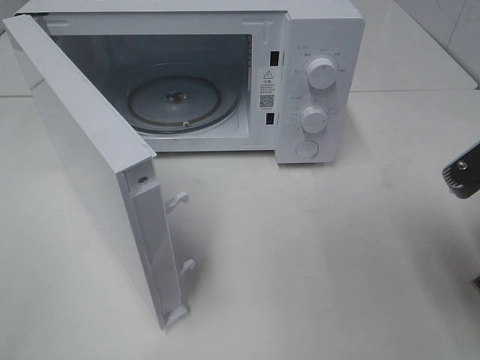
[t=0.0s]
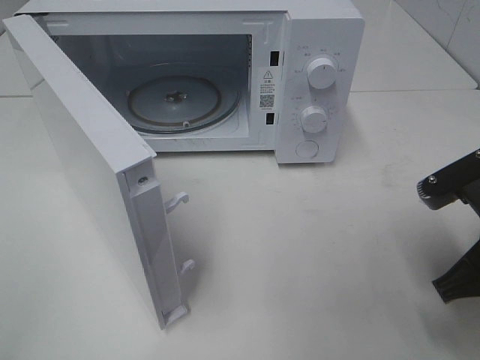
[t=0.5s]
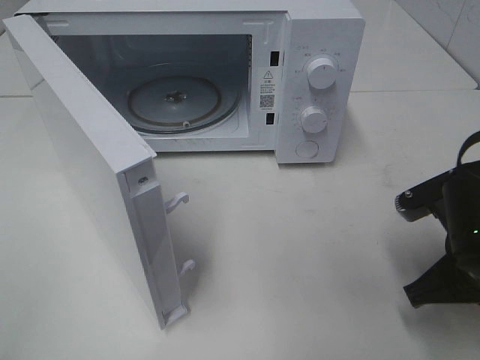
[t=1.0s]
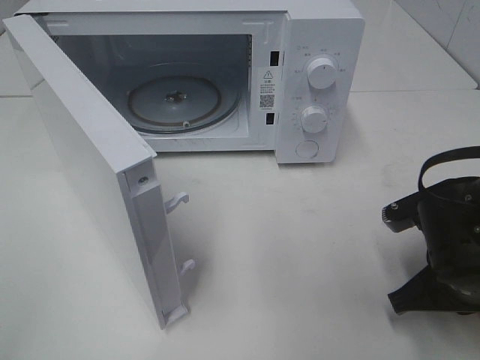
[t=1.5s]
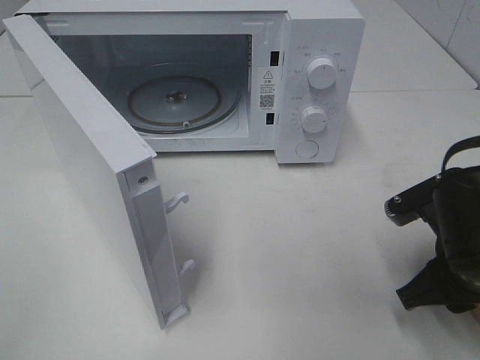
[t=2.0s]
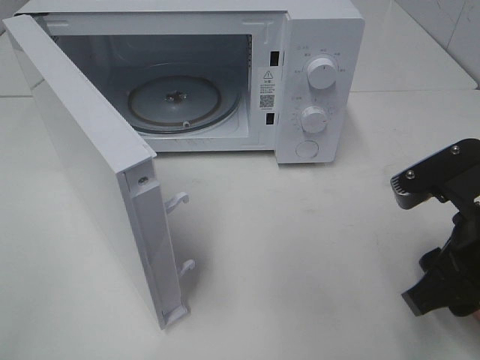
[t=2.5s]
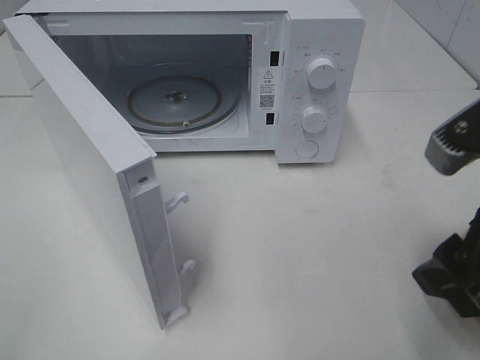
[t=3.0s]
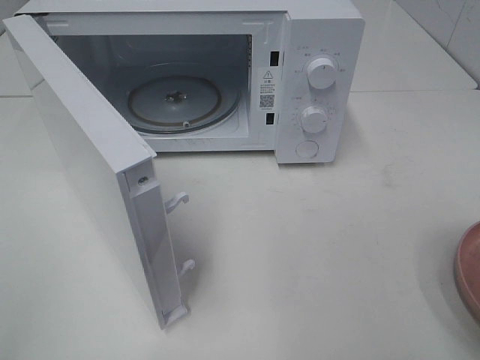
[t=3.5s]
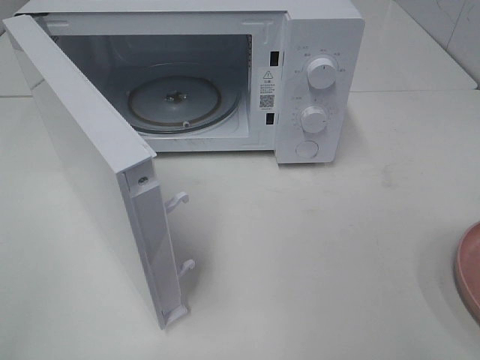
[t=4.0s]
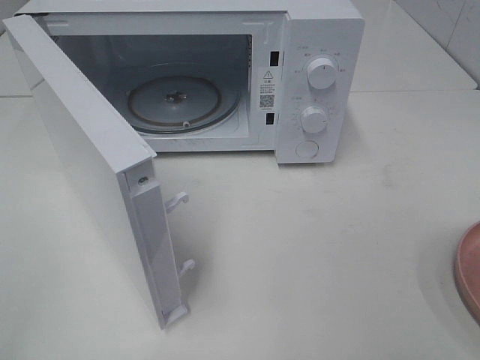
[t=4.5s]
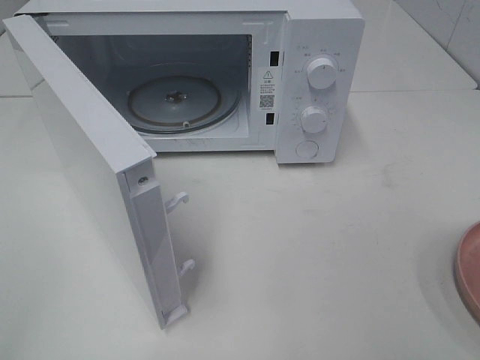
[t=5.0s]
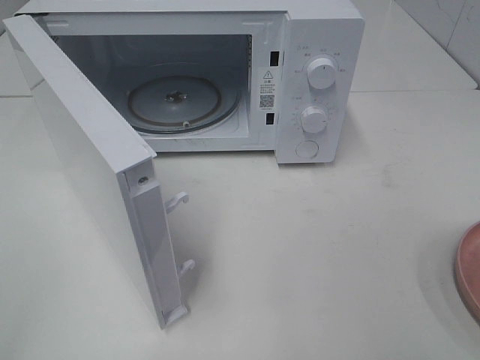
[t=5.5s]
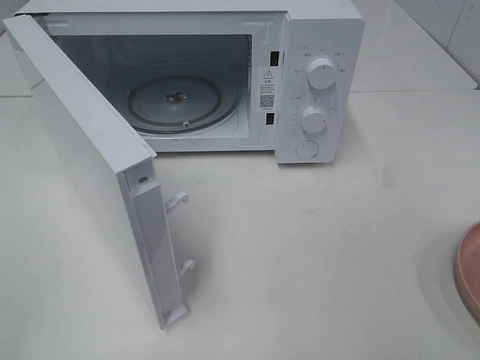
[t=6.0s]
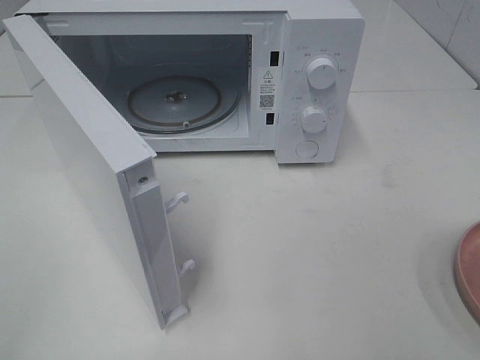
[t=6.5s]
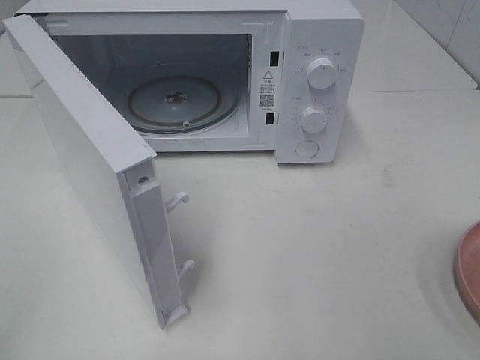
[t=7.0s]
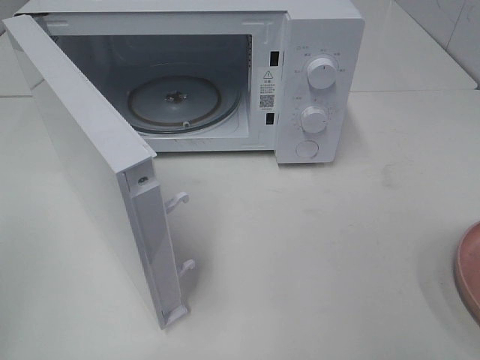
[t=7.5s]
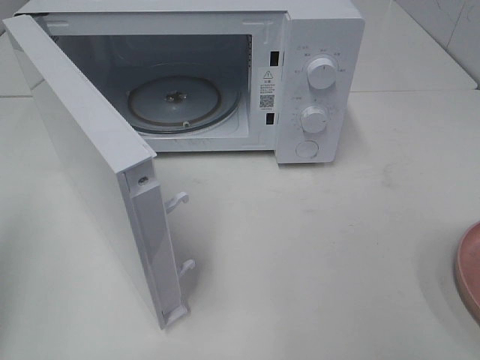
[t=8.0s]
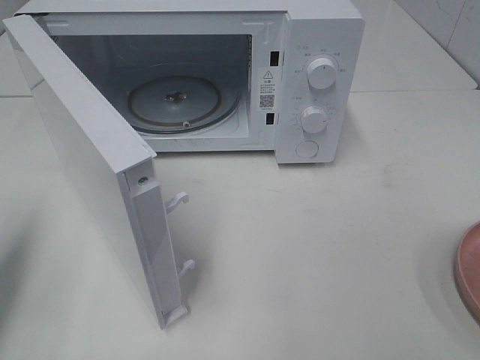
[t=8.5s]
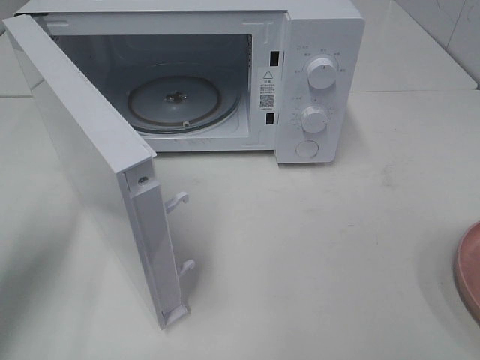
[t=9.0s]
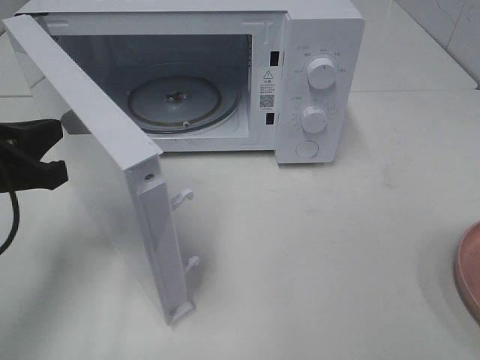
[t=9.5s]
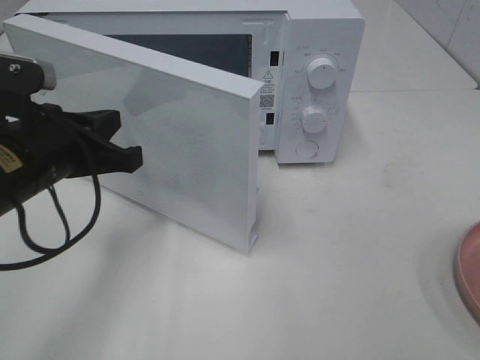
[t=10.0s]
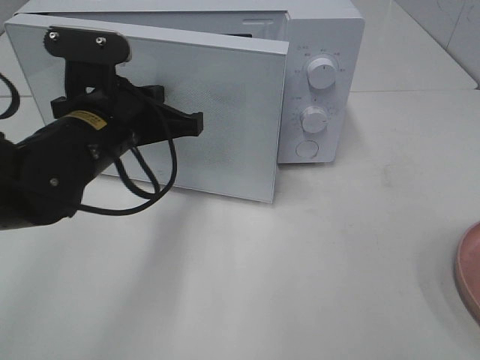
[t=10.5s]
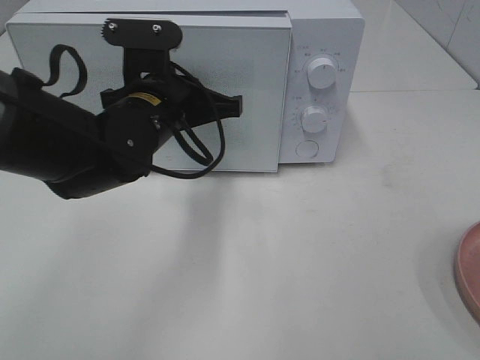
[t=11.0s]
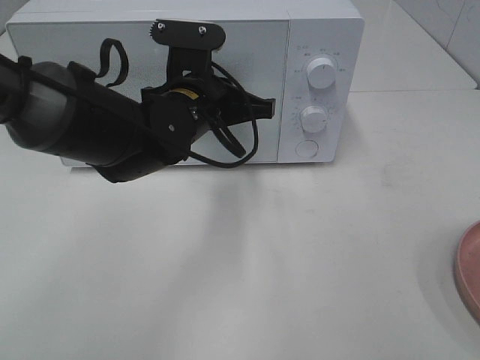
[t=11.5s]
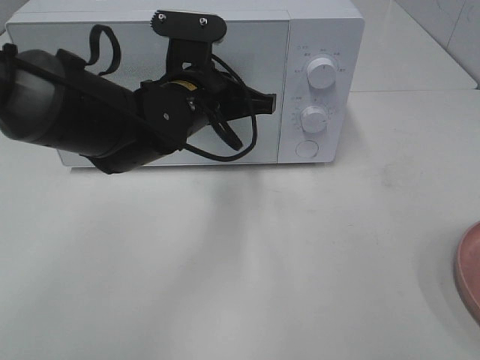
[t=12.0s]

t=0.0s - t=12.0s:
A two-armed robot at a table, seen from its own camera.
Task of the whole recording: Heat the burger.
Step, t=0.0s - t=2.5s: Right hand: place the plate on the table.
t=0.0s - t=2.0s: The right gripper moves downward, roughly 10 cm, and opens up.
t=2.0s - t=4.0s: The right gripper travels upward and backward by some 25 cm.
t=8.0s - t=10.0s: The left gripper is displaced to the right, forward and downward by roughly 20 cm.
t=10.0s - t=12.0s: The left gripper travels to the right and forward by roughly 15 cm.

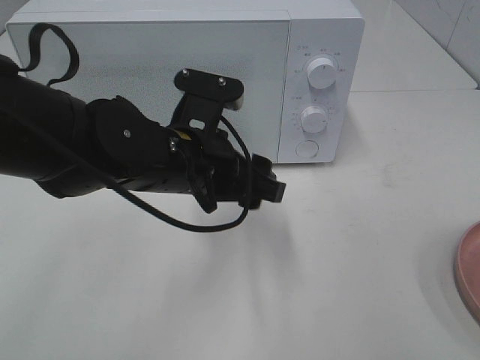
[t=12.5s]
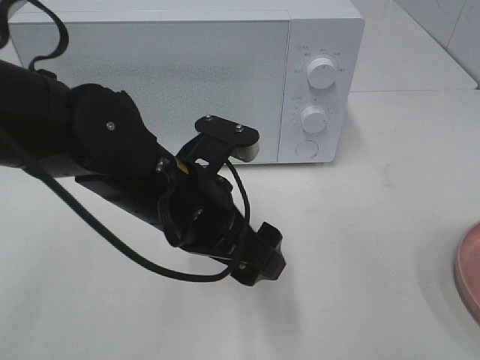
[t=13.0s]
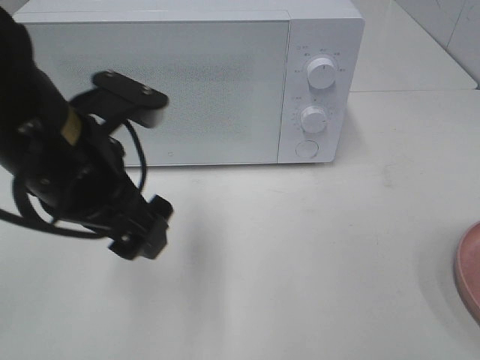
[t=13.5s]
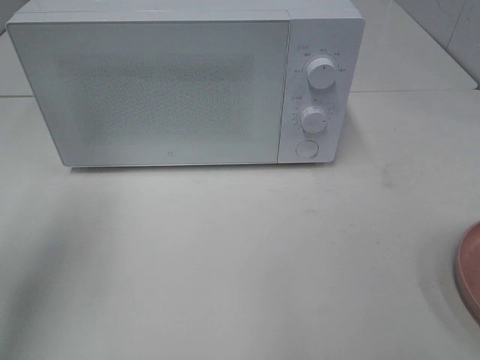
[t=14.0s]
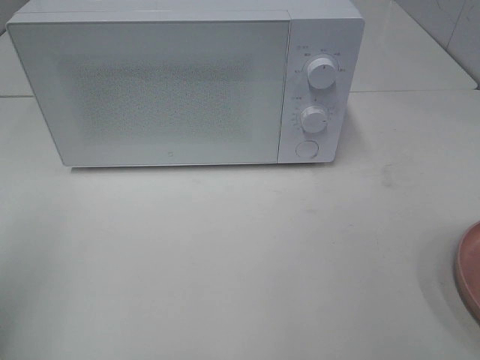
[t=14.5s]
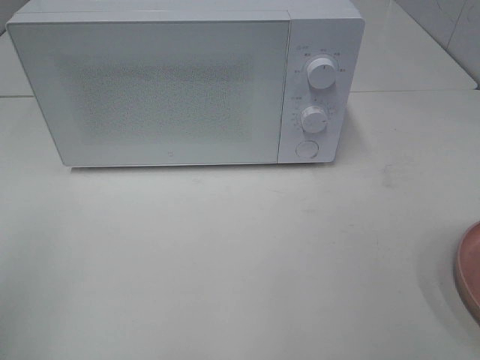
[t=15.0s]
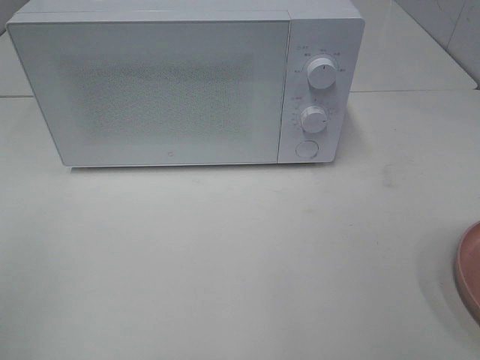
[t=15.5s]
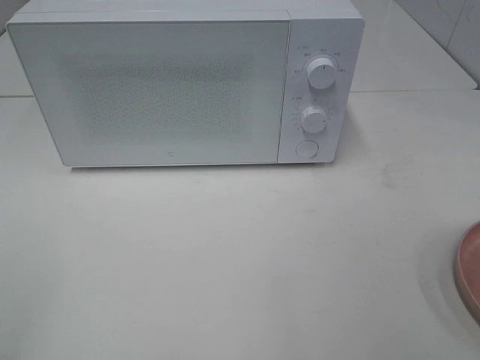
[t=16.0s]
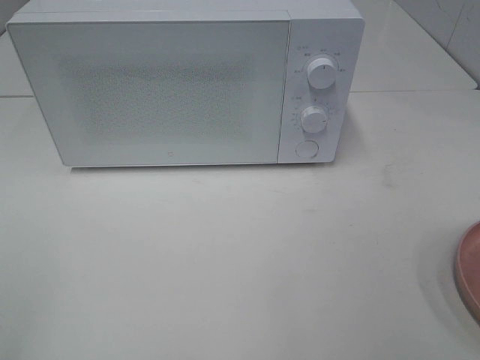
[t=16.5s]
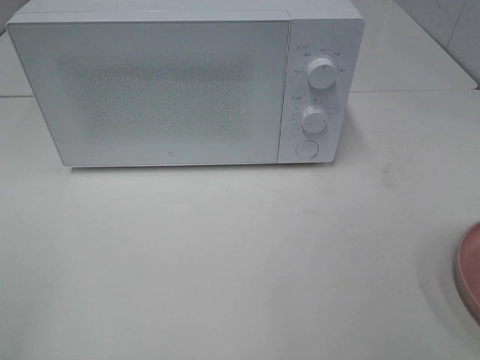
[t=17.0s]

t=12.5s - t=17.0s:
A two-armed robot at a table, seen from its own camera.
Task of the whole recording: Heat the burger.
t=12.5s - t=14.5s: The left gripper goes approximately 30 cm to the left and backward.

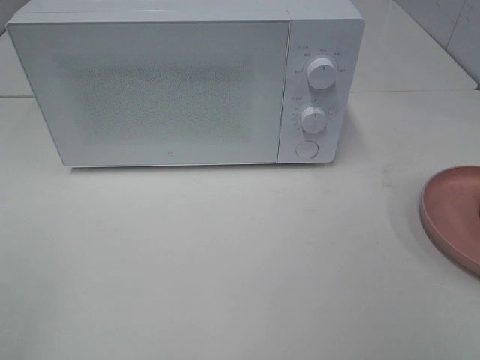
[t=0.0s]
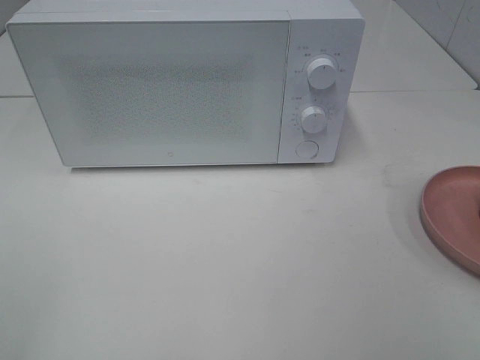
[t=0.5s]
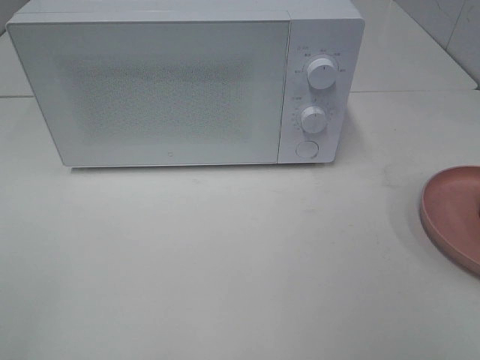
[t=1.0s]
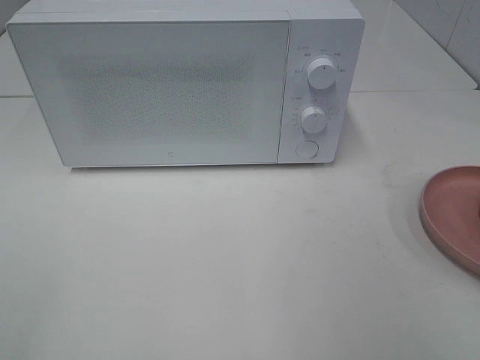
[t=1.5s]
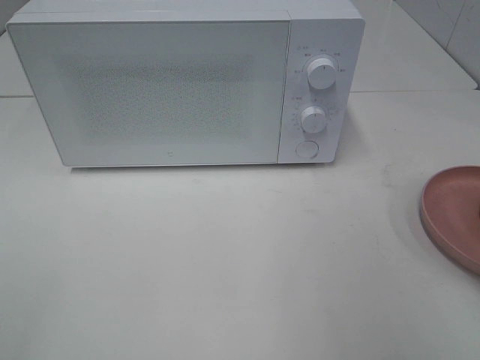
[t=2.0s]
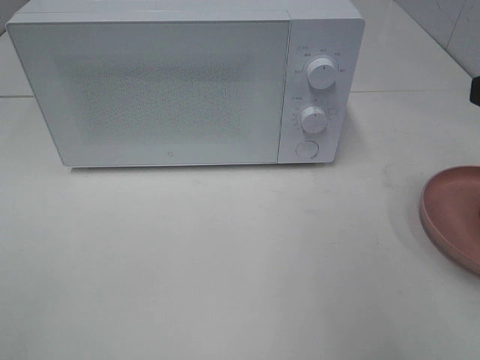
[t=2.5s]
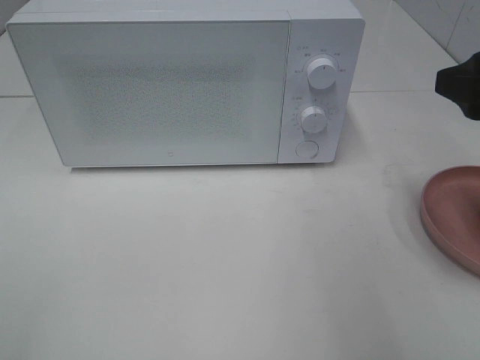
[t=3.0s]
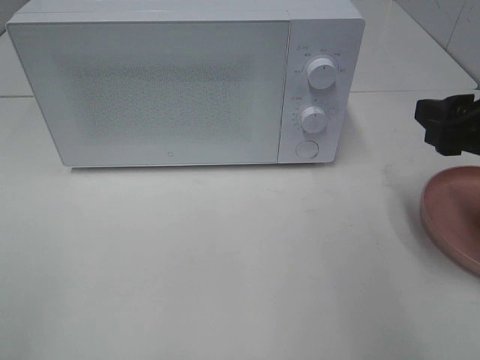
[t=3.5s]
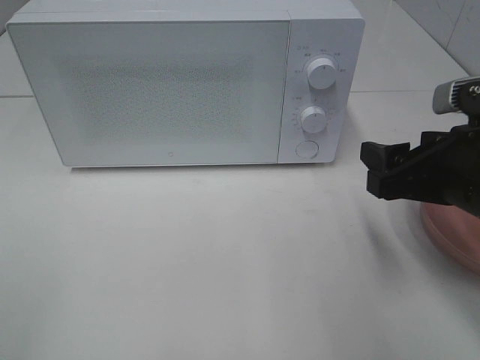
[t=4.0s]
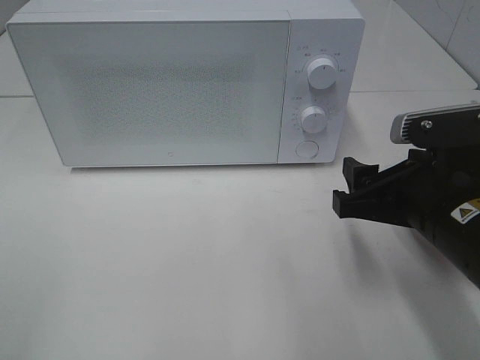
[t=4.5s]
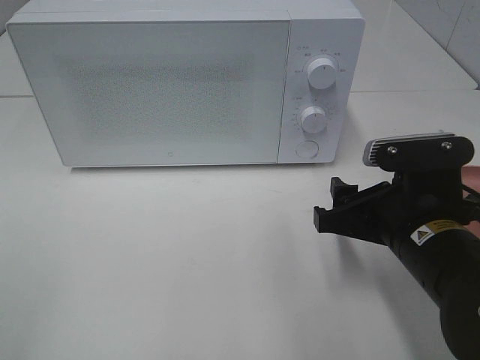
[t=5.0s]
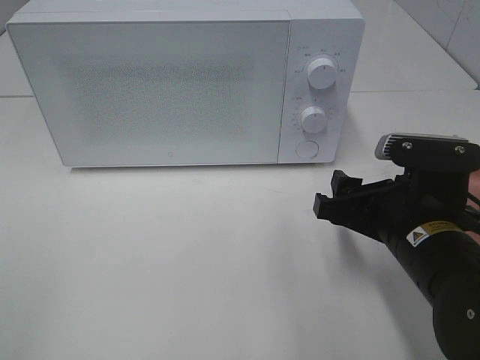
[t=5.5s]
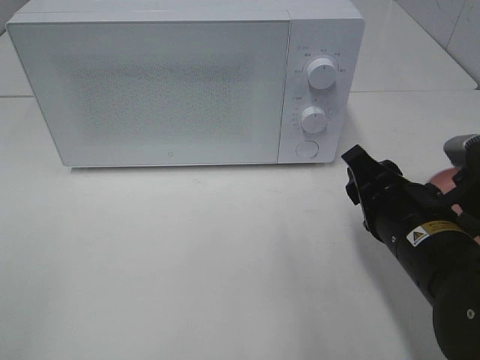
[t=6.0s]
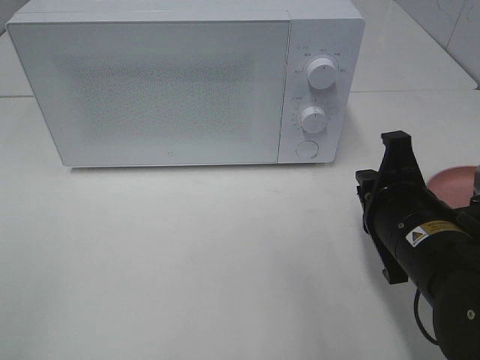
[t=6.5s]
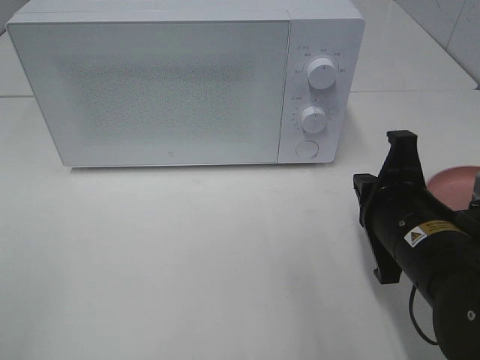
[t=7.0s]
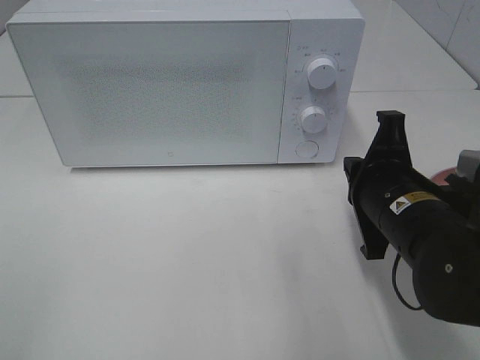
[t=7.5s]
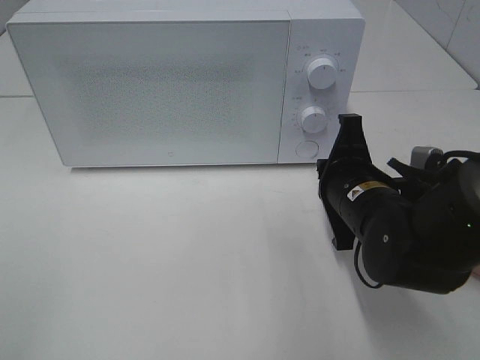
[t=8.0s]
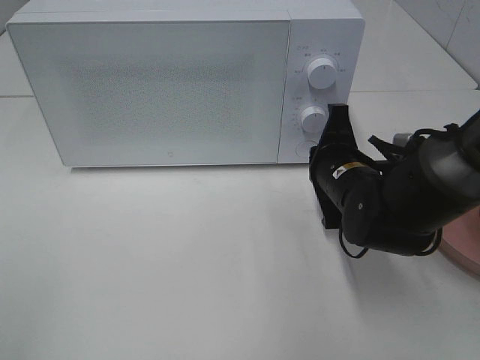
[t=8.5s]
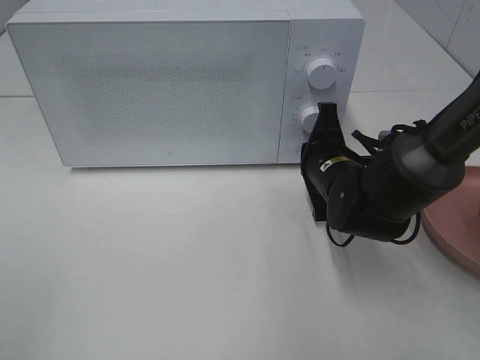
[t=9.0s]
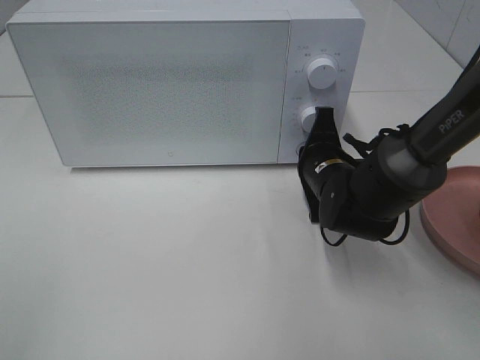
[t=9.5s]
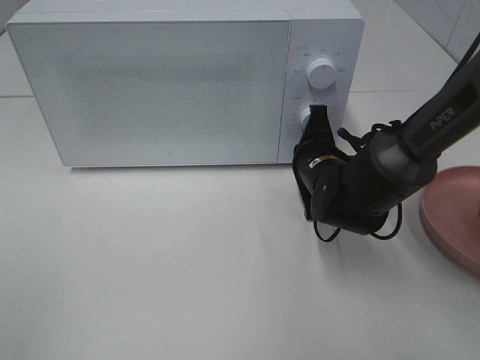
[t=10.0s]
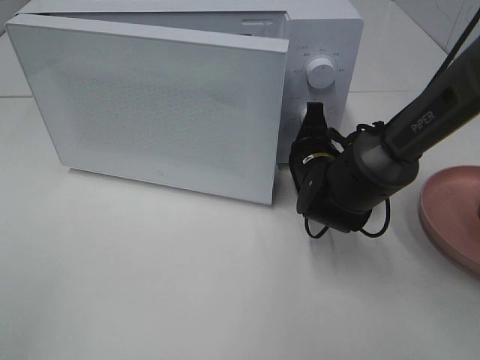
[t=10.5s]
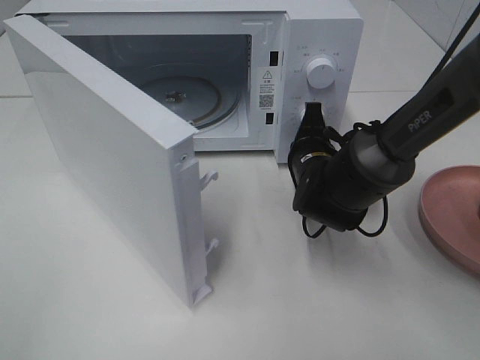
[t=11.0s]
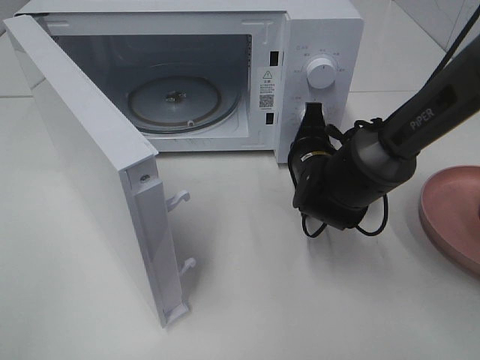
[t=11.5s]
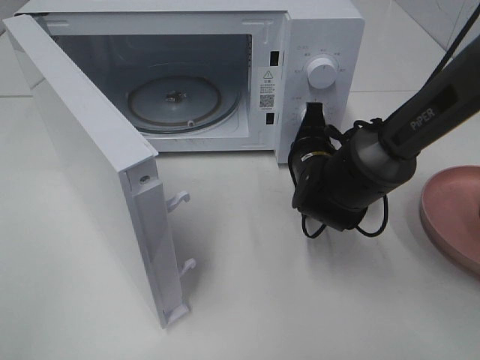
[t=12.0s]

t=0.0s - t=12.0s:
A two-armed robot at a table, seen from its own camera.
Task of the whole recording: Heat the burger.
t=2.0s - t=4.0s: The right gripper is displaced downward, forward and to the left by approximately 15 cm.
t=4.0s - t=6.0s: The right gripper is displaced downward by roughly 5 cm.
t=6.0s - t=8.0s: The right gripper goes roughly 5 cm forward, and closes up.
t=8.0s - t=10.0s: The right gripper travels forward by approximately 10 cm.
